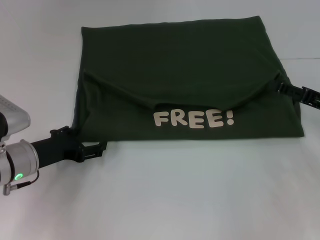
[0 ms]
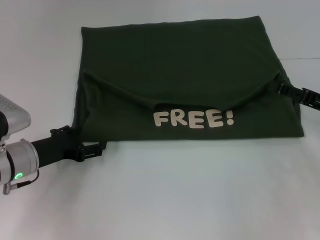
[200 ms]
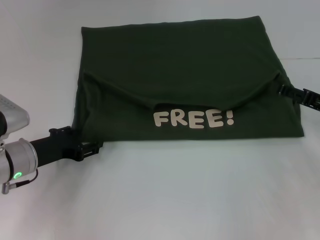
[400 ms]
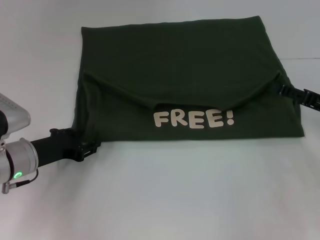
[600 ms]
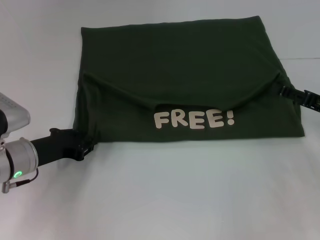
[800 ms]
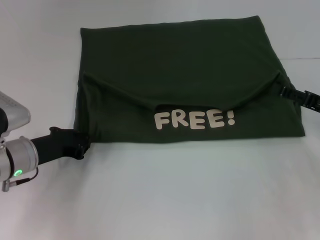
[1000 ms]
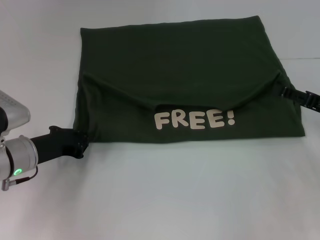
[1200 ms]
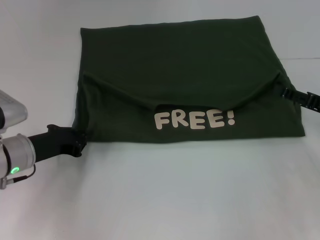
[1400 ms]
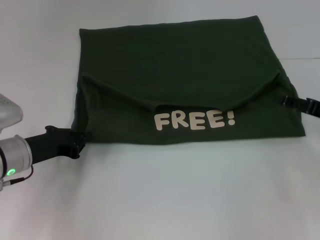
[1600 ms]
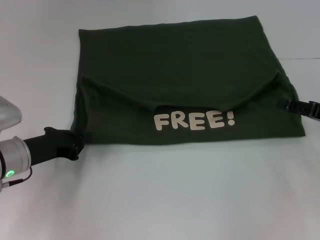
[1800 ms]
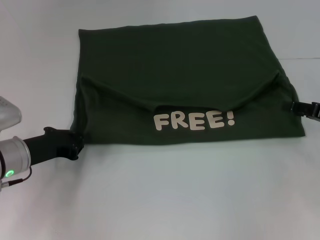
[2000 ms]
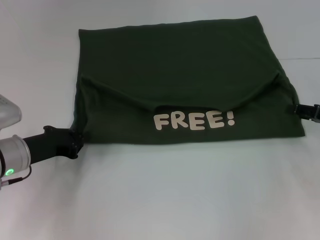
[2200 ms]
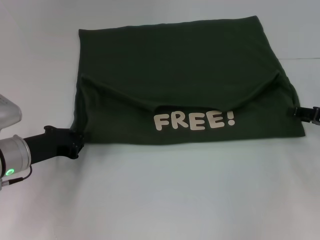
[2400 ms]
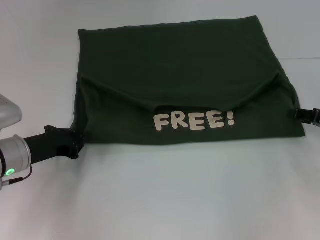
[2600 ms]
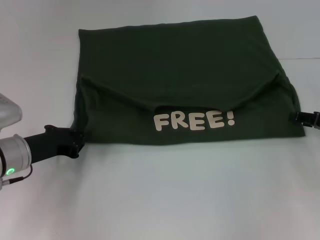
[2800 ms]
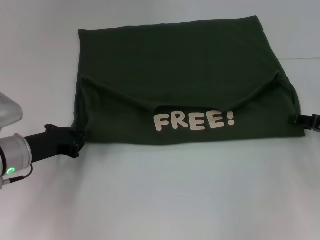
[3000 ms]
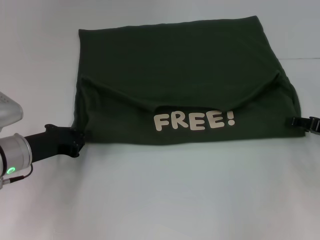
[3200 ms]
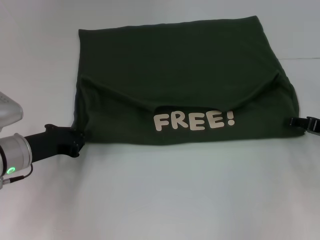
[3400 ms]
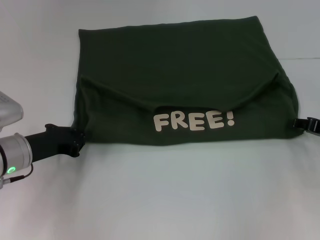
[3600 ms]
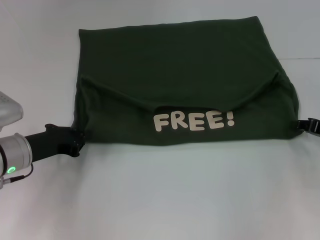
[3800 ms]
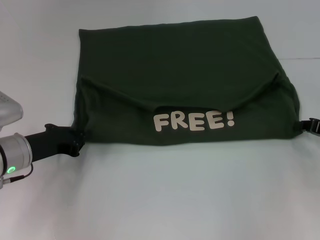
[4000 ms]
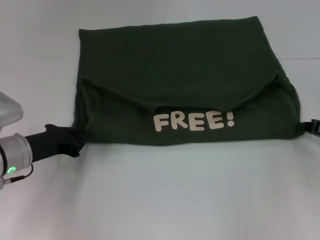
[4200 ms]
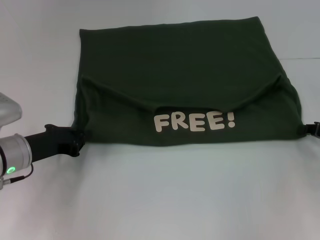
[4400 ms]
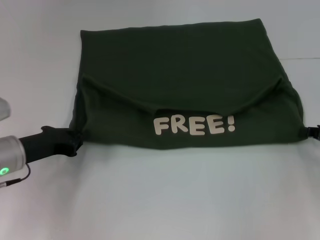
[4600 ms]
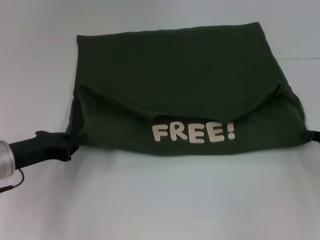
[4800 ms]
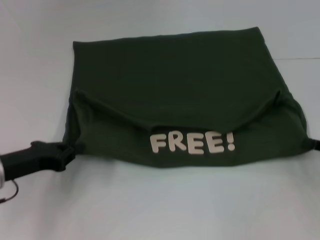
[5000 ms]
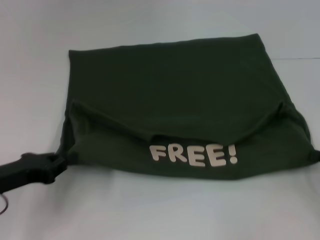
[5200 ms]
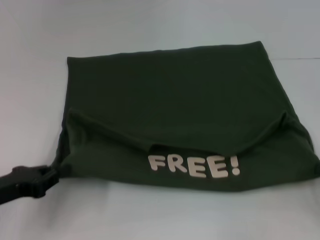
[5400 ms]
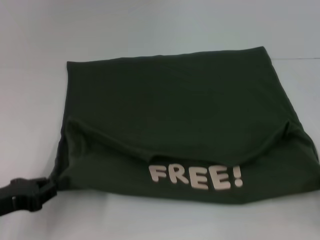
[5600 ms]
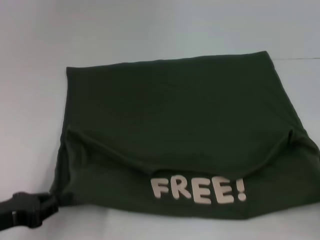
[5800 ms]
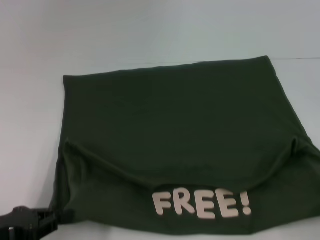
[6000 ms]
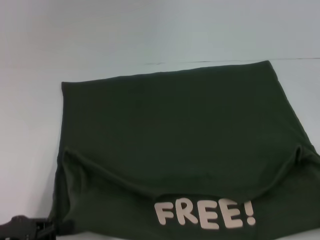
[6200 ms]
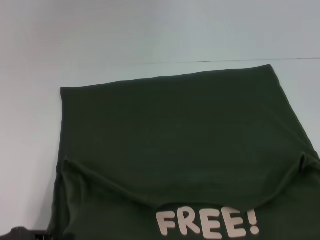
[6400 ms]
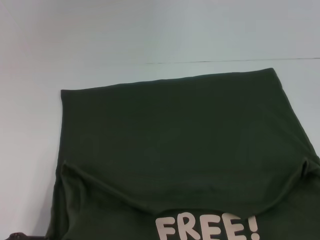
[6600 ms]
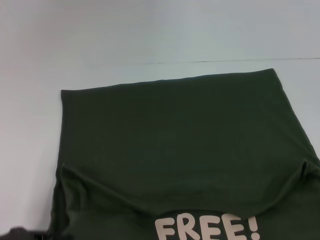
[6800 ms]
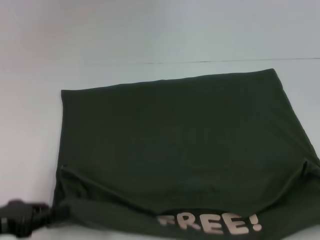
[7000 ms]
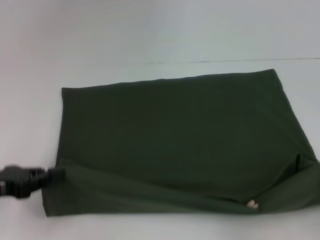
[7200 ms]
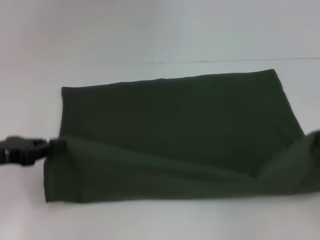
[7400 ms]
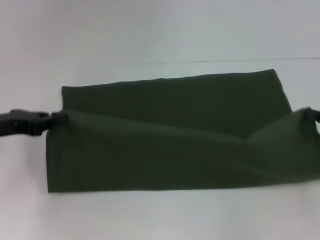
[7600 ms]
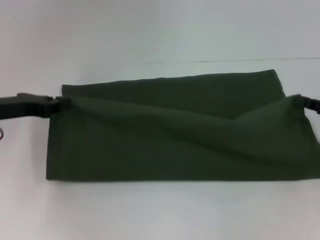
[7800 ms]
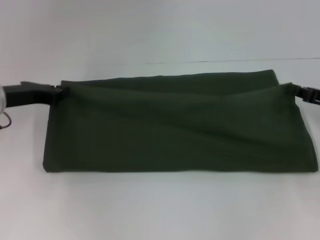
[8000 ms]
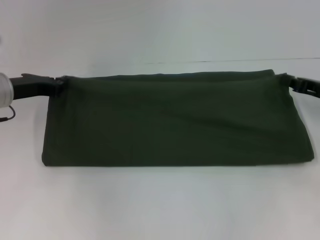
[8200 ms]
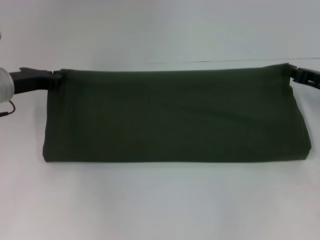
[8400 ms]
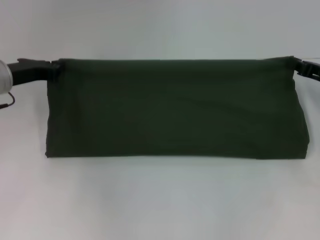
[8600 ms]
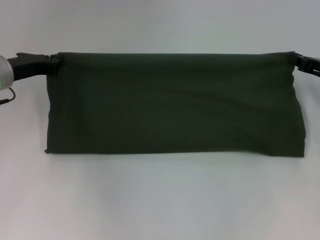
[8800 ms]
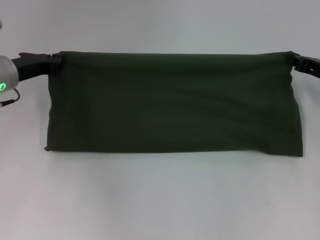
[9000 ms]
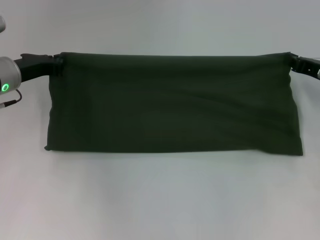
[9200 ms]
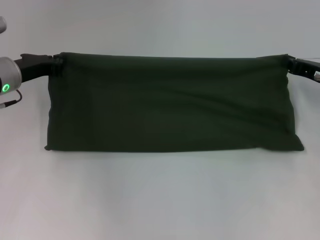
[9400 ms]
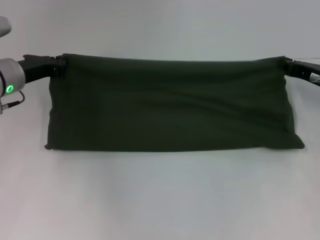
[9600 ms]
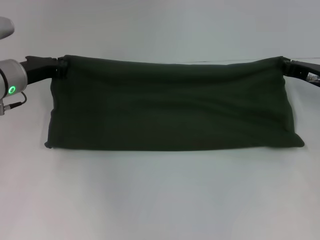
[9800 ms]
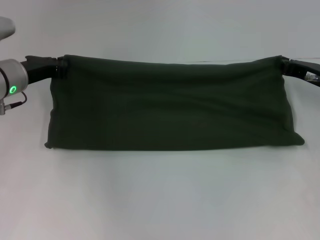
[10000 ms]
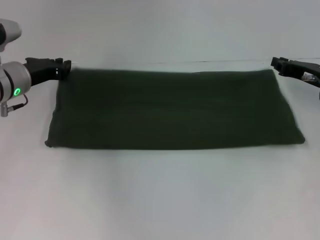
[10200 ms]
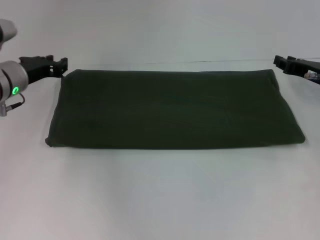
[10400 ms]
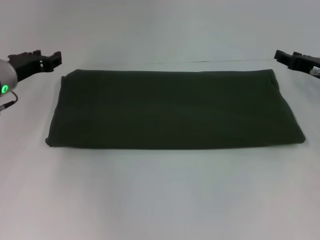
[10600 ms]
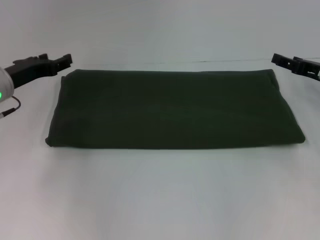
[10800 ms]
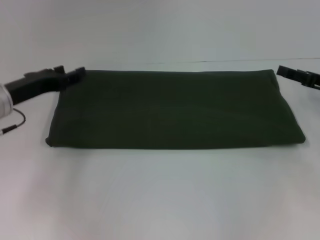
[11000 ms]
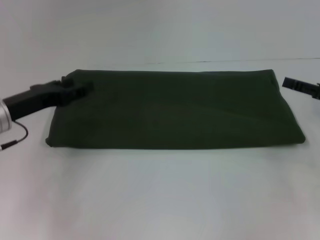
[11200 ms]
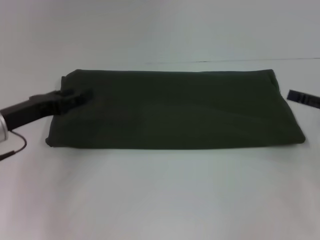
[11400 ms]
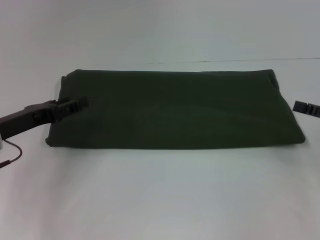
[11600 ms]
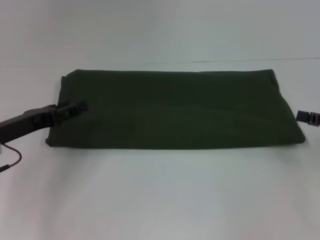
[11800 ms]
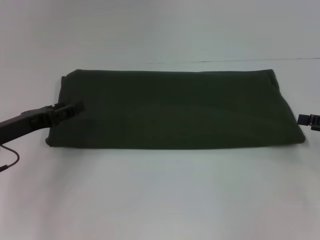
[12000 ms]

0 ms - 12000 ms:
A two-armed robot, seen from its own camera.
Step, 0 ms - 6600 ms: Pull the clothes with your left hand.
Step, 0 ms - 6600 ms: Pull the clothes with your right hand.
Step, 6800 ms - 10400 ms: Fold the clothes with your right hand.
0 ms - 1600 ms: The left gripper closes.
1600 ms - 3000 ms: The grippers stay close to where they were, moving slightly.
3000 ms - 4400 ms: The right gripper closes up.
4400 ms - 6000 ms: The right gripper is displaced backward by some 15 cm. The left gripper travels backward and to the left by some 15 cm.
6000 ms - 7600 ms: The right gripper travels forward by some 10 cm. The left gripper is displaced forward and upward by approximately 15 cm.
7600 ms - 9000 ms: The right gripper travels forward and to the left by about 10 cm, while the left gripper shifts some 10 cm forward.
9000 ms - 10400 ms: The grippers move only a little.
10400 ms - 12000 ms: The right gripper is displaced backward and to the right by about 15 cm, and opens its fingers; the left gripper shifts roughly 10 cm backward, and opens up.

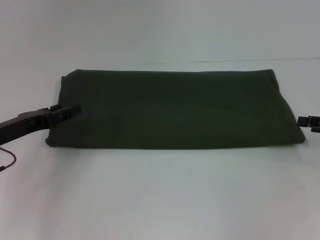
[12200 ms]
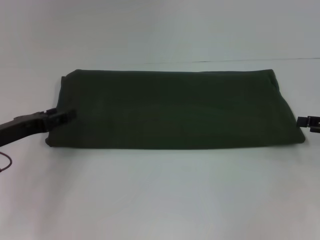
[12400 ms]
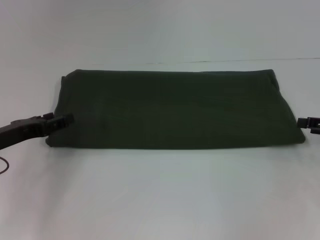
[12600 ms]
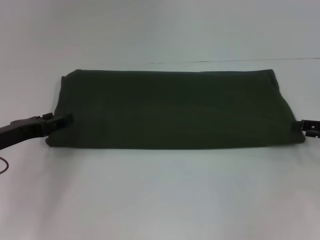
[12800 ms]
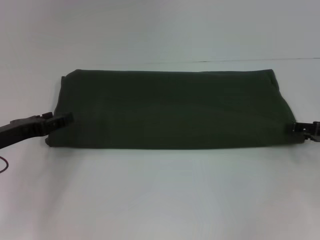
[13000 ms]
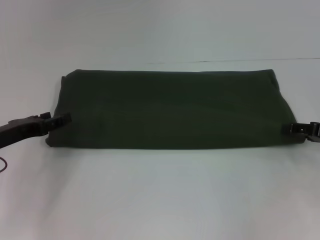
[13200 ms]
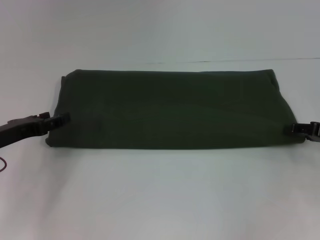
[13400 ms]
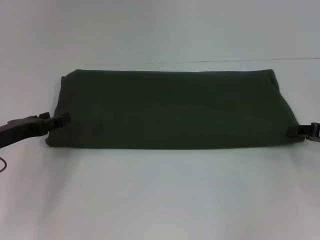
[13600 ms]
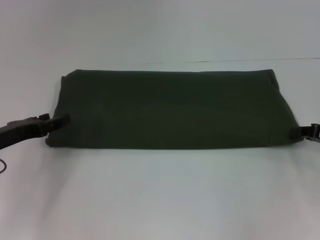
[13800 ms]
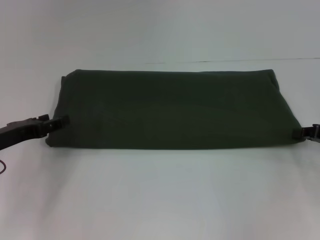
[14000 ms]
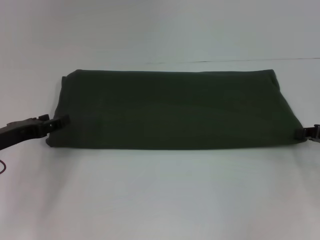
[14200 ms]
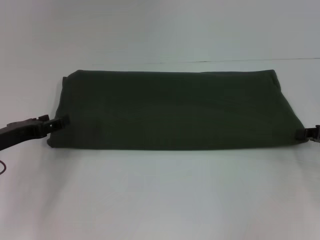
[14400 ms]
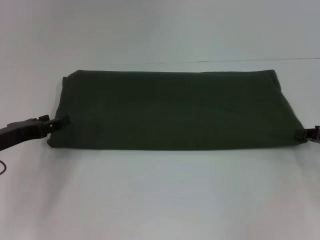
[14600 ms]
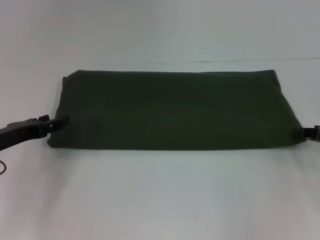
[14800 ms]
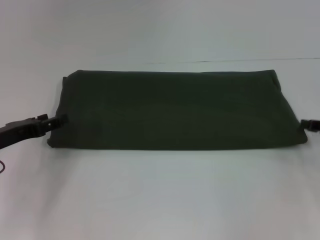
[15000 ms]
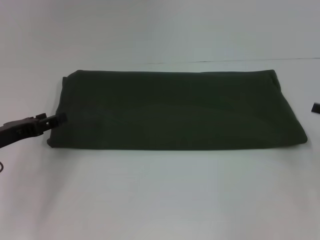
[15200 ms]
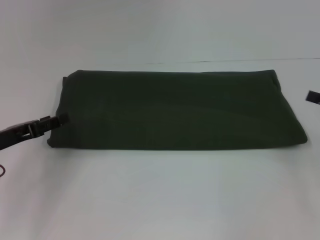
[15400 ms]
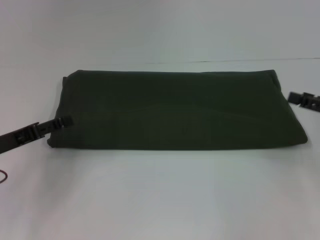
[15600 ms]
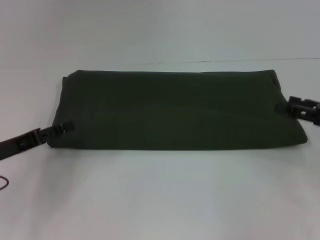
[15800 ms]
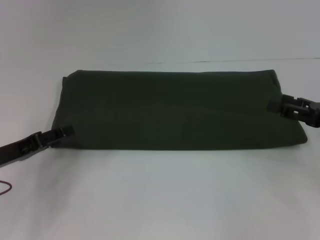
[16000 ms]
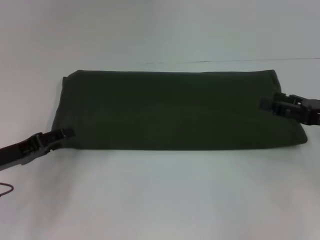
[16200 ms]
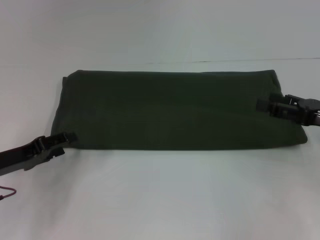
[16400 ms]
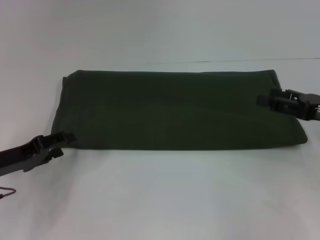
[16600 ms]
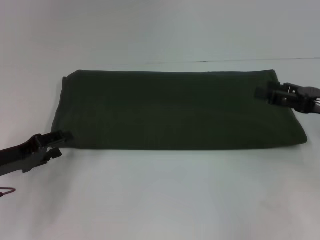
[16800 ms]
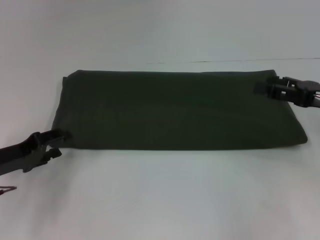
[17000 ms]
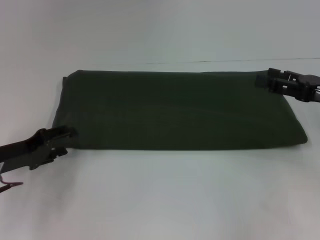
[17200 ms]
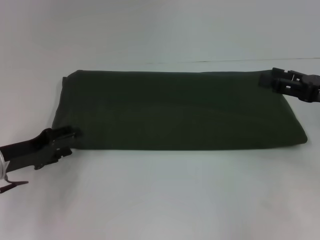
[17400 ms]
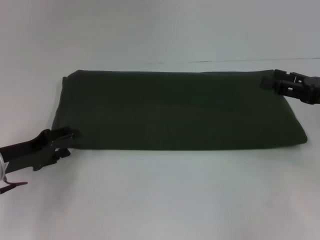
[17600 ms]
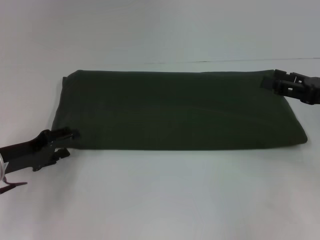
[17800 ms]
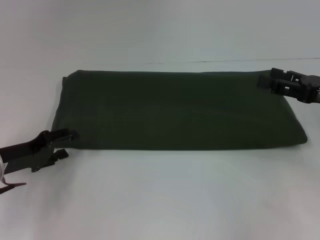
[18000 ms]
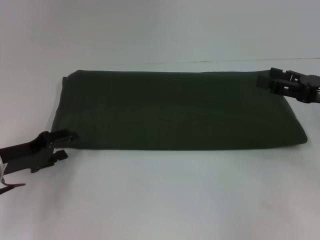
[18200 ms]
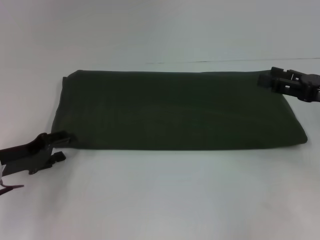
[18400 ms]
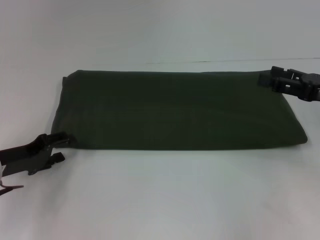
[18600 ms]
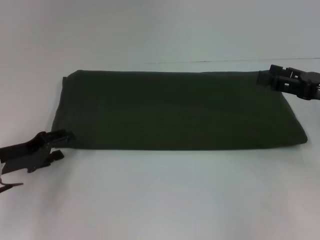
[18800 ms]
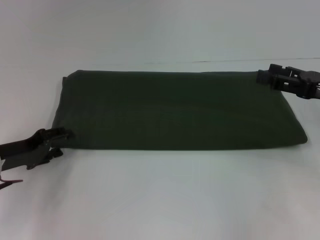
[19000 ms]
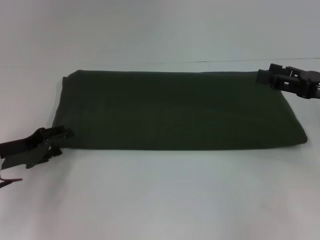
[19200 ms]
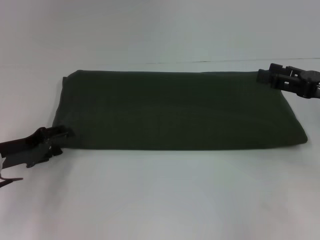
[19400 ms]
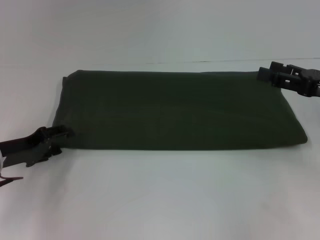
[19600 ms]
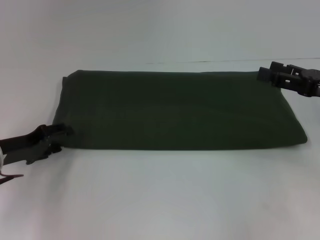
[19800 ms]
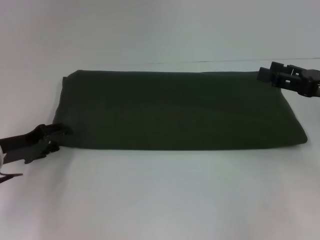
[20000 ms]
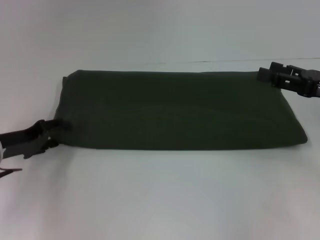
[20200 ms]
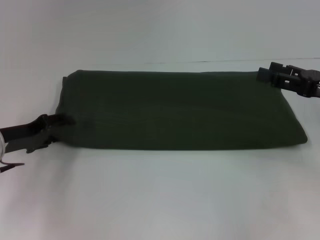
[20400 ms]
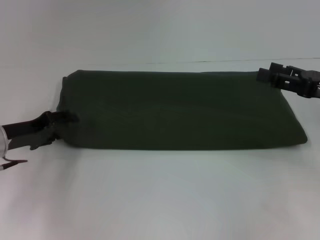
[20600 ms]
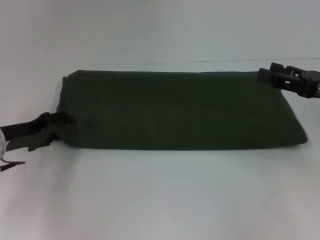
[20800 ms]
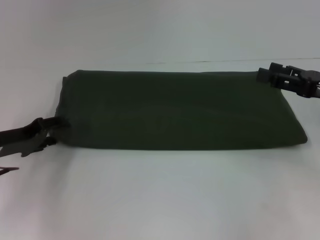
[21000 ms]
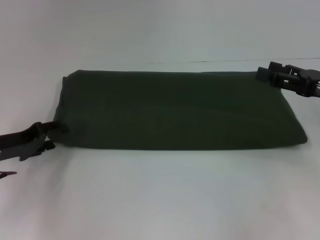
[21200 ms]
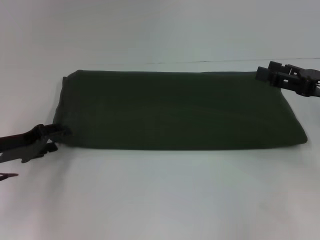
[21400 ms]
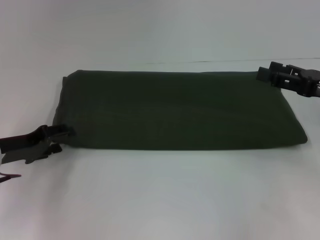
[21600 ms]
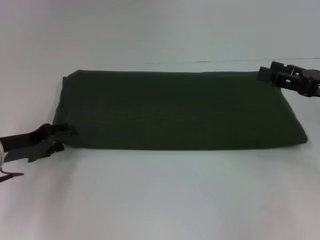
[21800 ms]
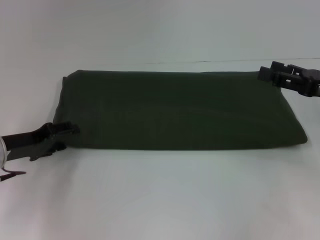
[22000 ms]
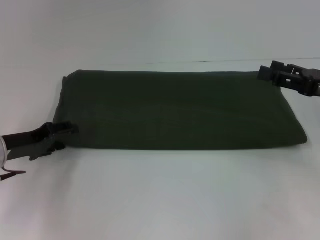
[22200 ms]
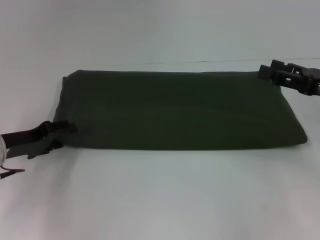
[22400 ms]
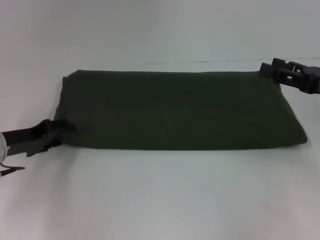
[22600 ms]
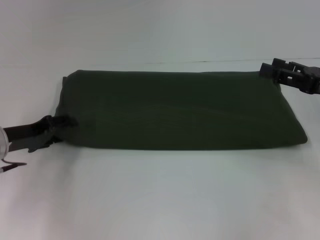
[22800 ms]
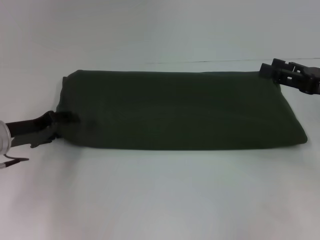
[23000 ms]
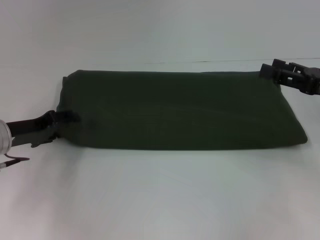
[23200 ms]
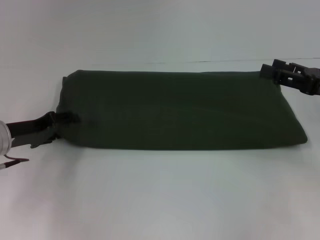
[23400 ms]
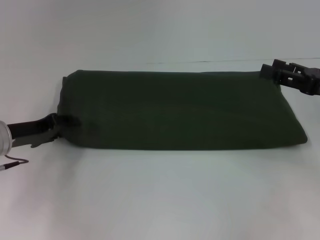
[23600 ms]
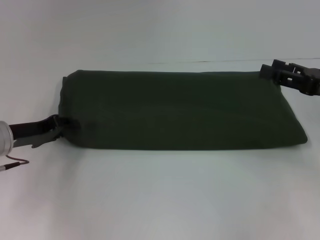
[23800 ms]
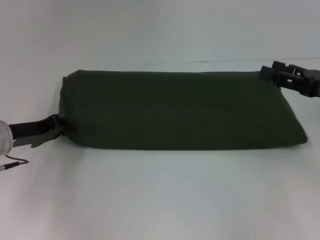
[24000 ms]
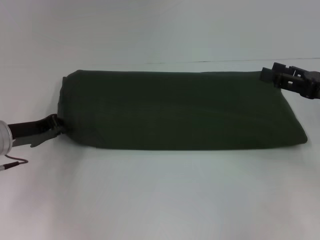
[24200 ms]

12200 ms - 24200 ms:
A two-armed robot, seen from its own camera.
13800 ms - 15200 ms: The grippers make only small movements.
15200 ms - 16600 ms: The right gripper heads to the left, covering about 5 cm, and opens up.
16600 ms - 22600 ms: The grippers make only small movements.
22600 ms - 24200 ms: The left gripper closes.
